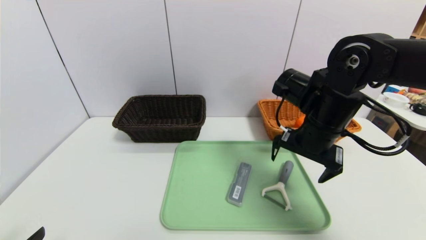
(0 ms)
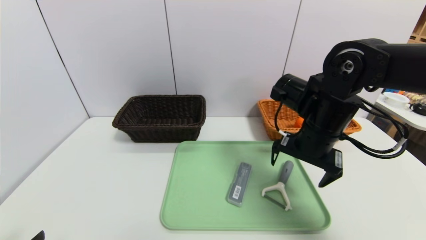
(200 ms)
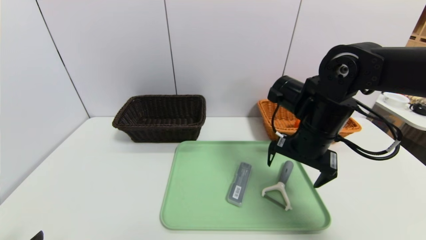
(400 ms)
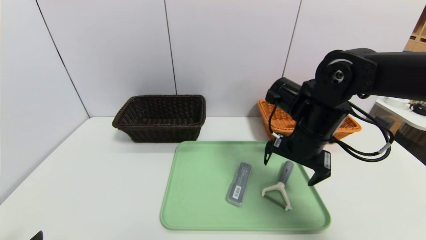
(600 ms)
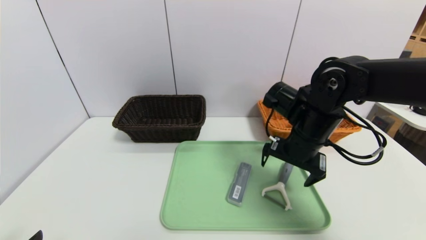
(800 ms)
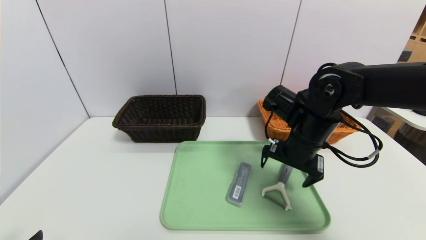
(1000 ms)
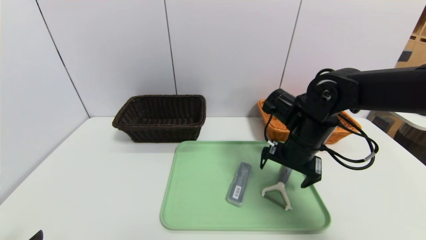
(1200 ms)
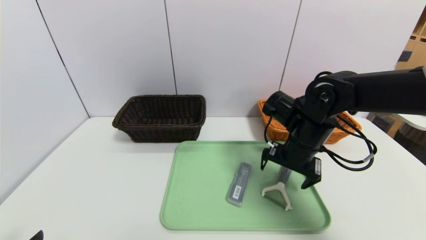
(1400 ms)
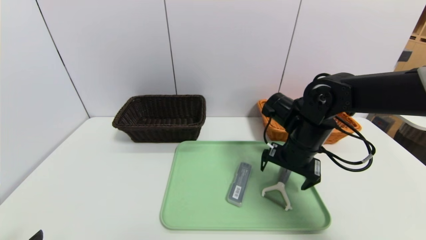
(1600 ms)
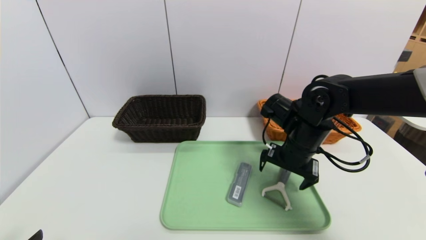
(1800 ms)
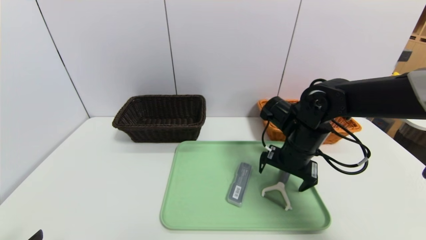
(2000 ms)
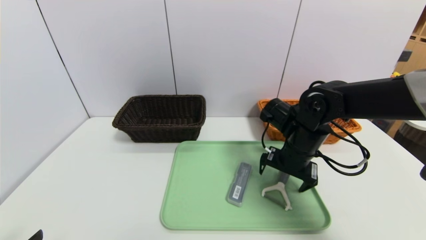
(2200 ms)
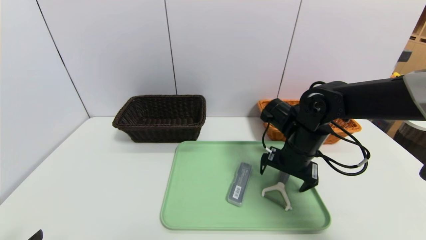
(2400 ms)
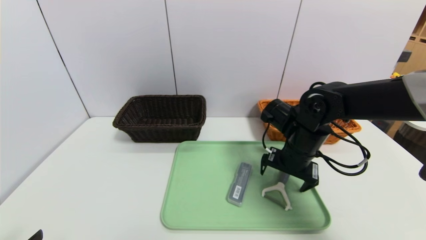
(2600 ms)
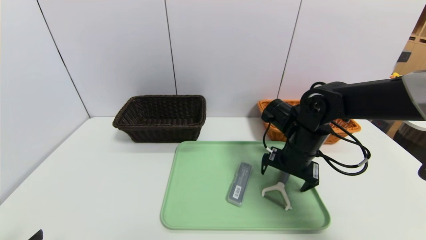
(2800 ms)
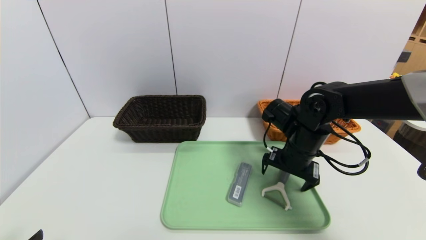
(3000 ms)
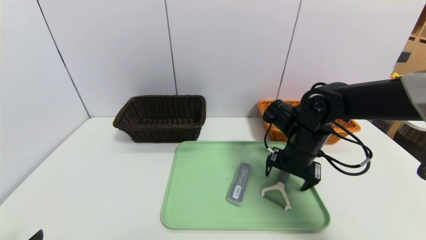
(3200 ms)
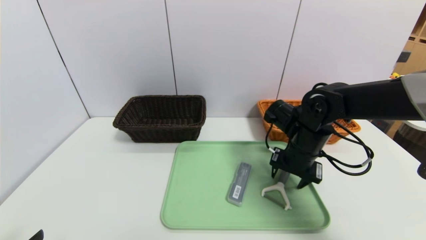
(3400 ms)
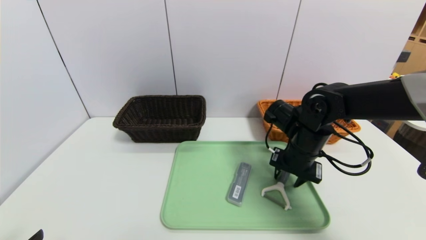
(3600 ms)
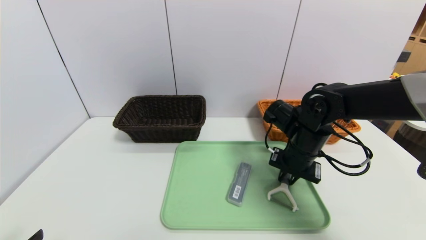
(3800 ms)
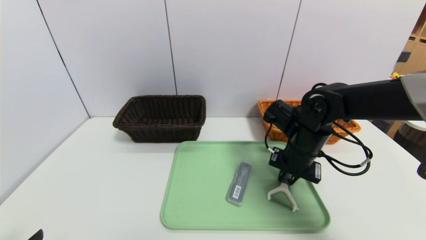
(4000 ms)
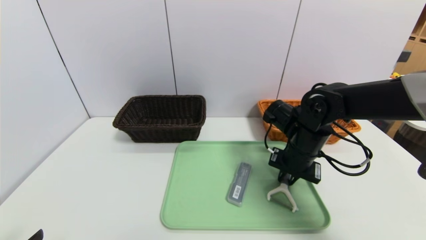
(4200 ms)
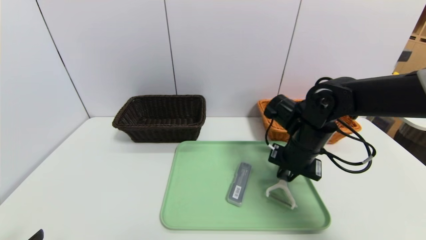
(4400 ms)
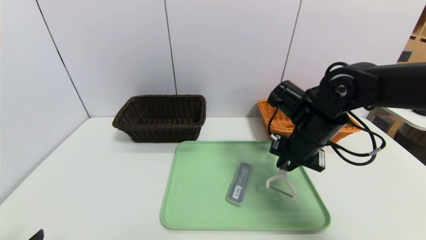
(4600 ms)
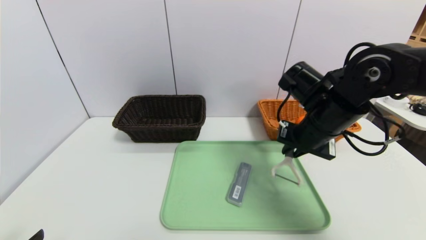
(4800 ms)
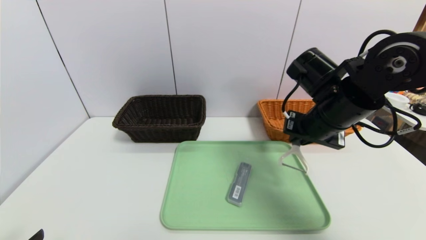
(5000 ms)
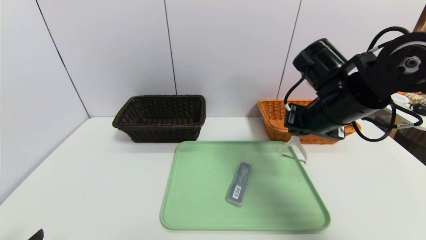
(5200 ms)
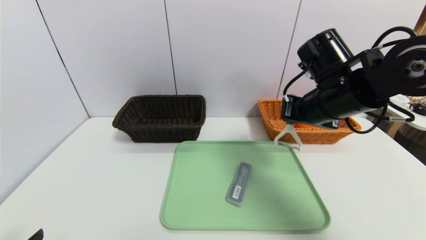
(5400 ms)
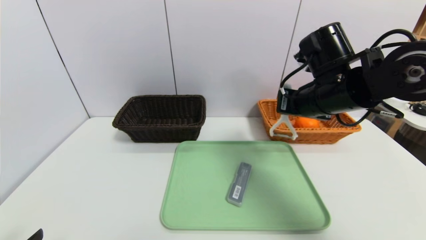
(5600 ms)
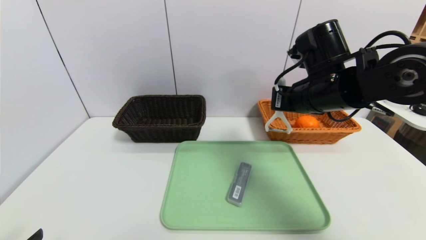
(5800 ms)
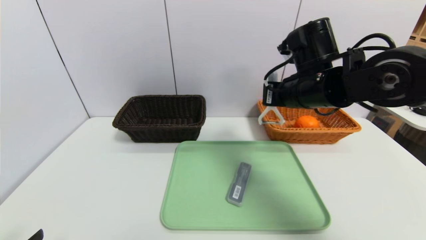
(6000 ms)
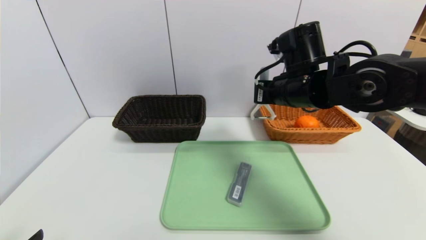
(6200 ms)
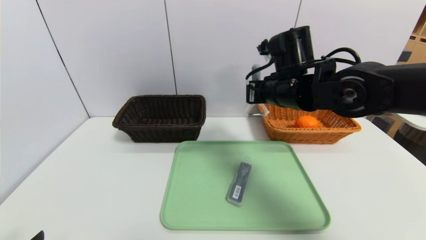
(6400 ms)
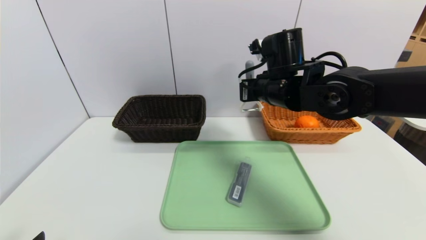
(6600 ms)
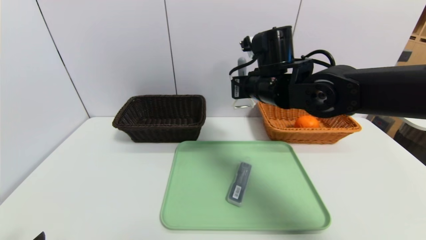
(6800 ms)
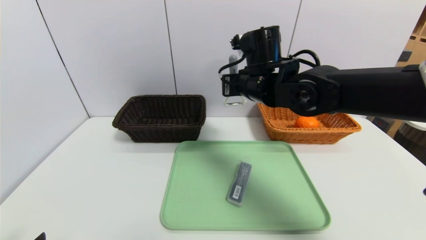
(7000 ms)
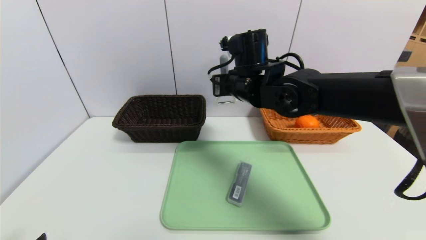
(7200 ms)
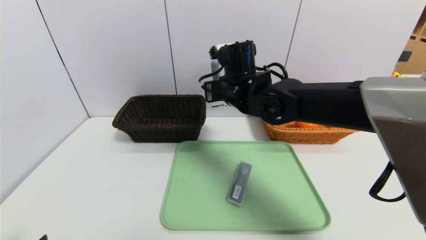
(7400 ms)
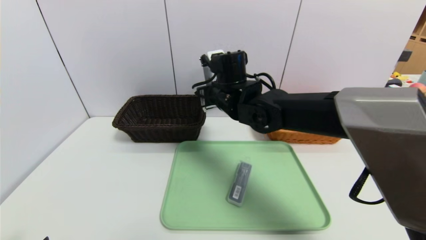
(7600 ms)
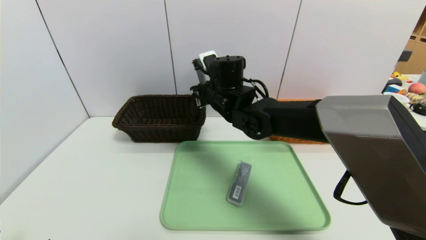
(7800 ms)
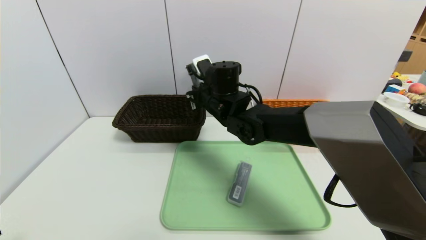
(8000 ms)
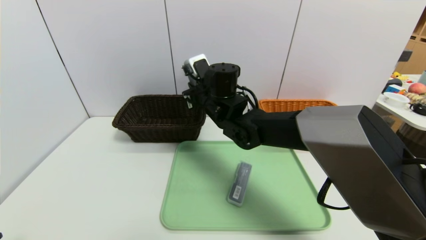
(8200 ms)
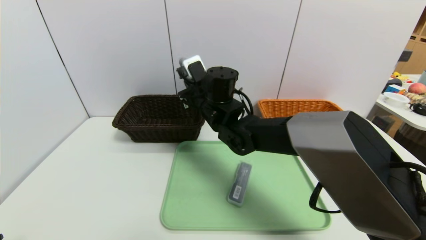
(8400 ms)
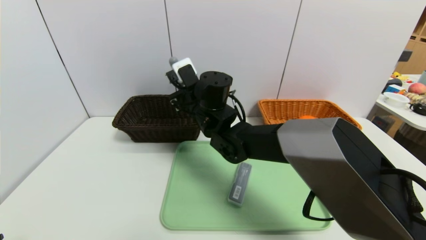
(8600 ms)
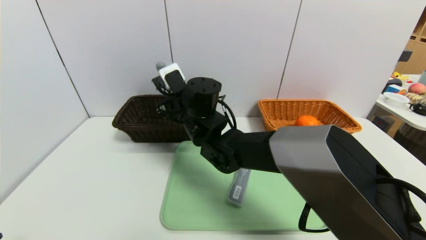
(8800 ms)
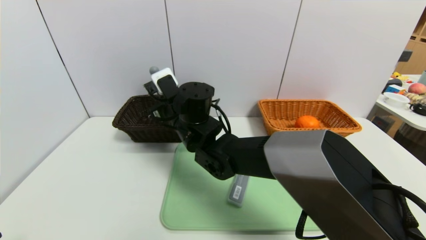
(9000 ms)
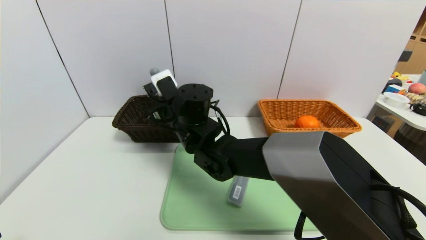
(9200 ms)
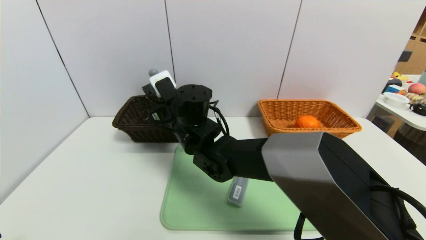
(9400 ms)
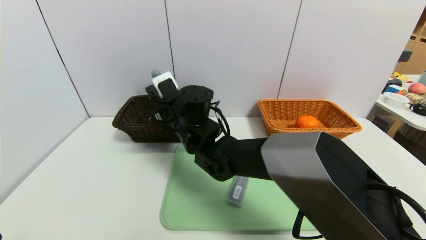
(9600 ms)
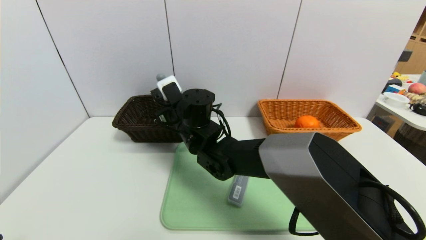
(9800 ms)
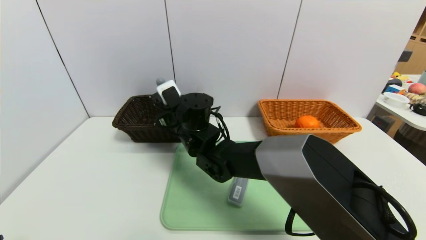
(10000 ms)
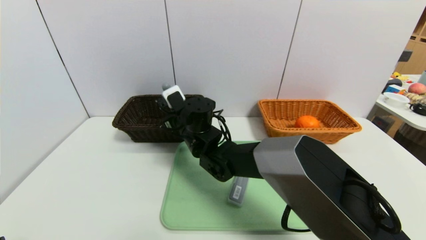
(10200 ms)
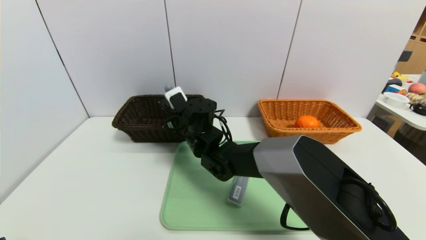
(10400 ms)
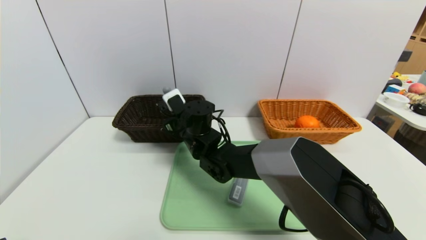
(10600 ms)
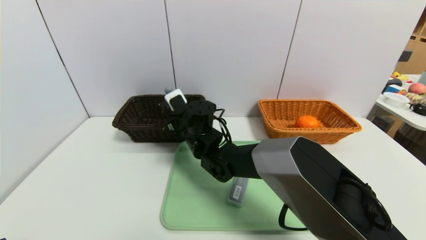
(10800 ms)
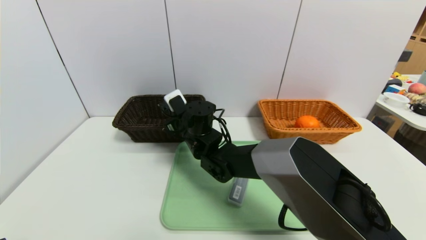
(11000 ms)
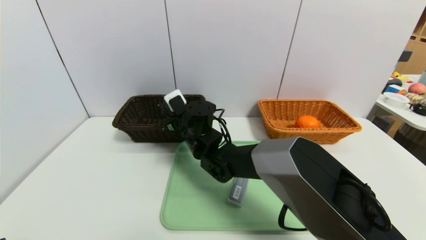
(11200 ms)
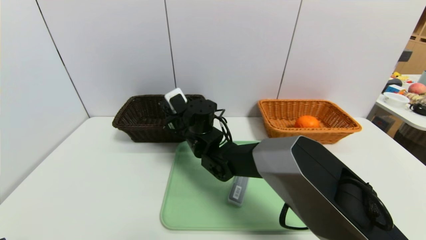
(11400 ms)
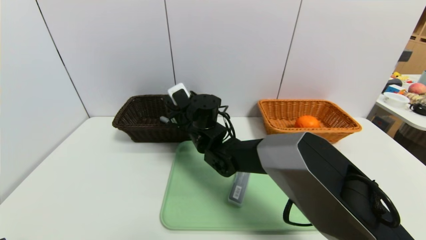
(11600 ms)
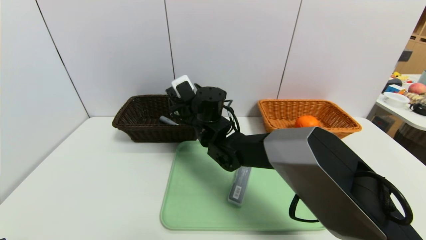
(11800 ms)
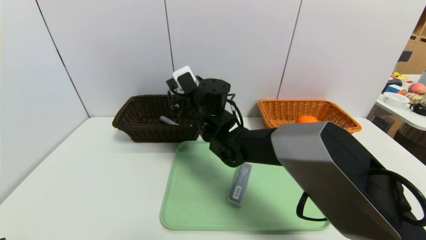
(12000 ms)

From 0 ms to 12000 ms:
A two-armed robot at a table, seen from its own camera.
Task of the whole recording: place the food in the right basket with the right gripper, and place the non food items in the left basket with the left gripper.
From 0 ms to 1600 ms: The right gripper travels downward by roughly 5 cm.
From 1600 ms to 3000 ms: There are only small adjustments of the grippers.
From 3000 ms to 4400 ms: The right gripper closes.
From 4400 ms to 6000 ms: The right gripper travels upward by roughly 10 cm.
From 6000 ms to 7600 ms: The right gripper is displaced to the left and forward by approximately 15 cm.
From 7600 ms to 9000 ms: The right gripper moves to the left, roughly 10 cm.
From 9000 ms to 10400 ms: The right gripper shifts roughly 5 cm downward.
From 10400 ms to 12000 ms: The right gripper heads upward, covering about 5 cm, and opens its fingers.

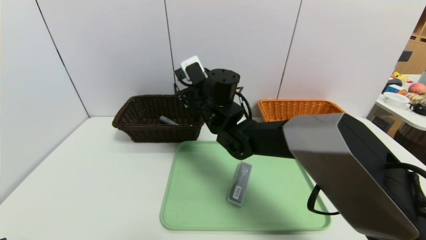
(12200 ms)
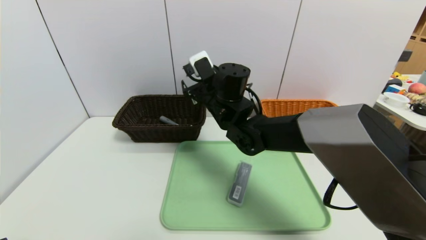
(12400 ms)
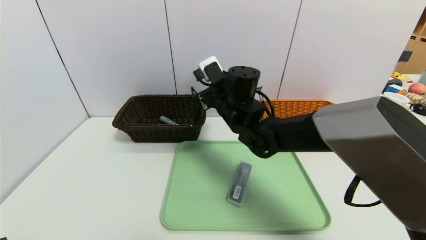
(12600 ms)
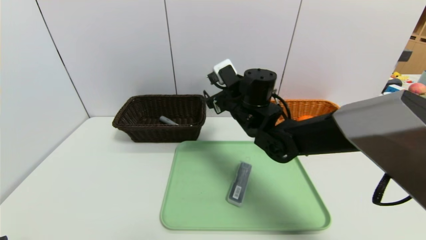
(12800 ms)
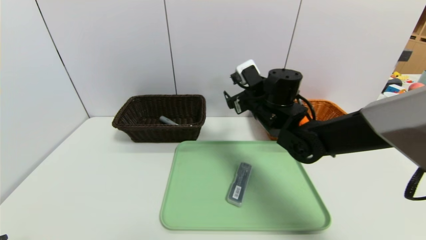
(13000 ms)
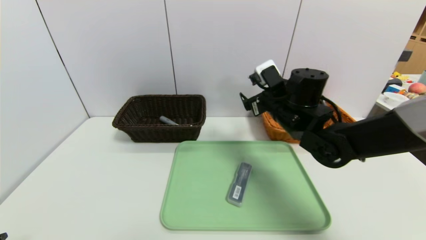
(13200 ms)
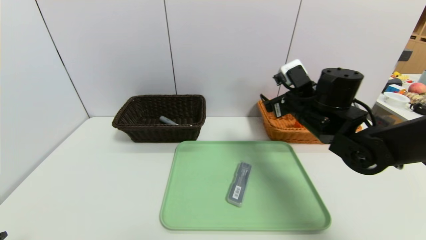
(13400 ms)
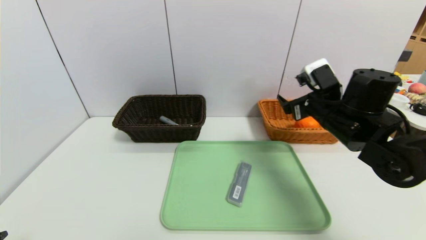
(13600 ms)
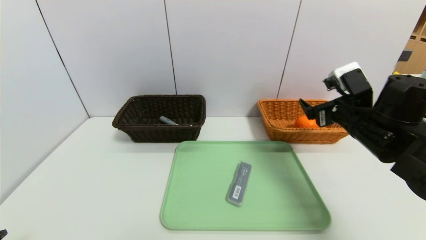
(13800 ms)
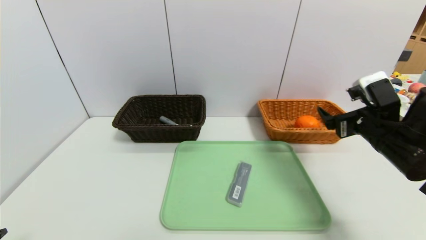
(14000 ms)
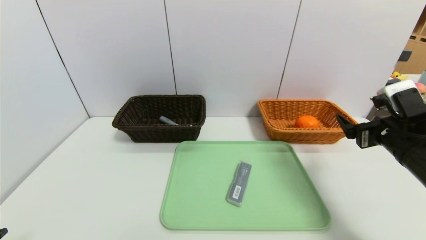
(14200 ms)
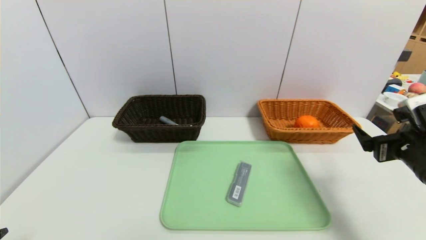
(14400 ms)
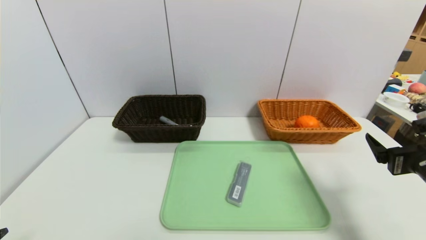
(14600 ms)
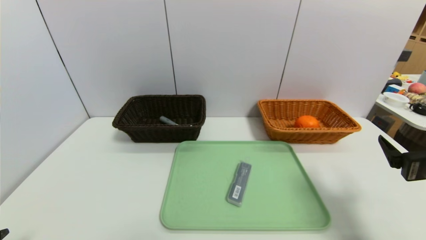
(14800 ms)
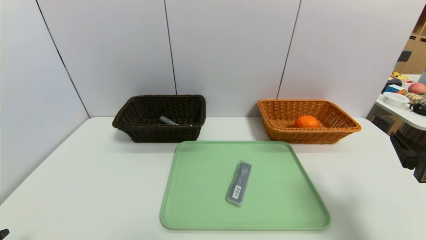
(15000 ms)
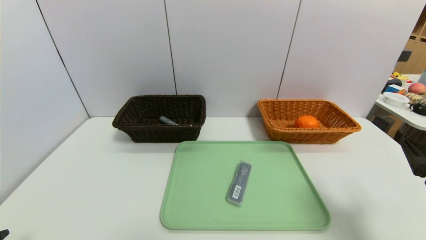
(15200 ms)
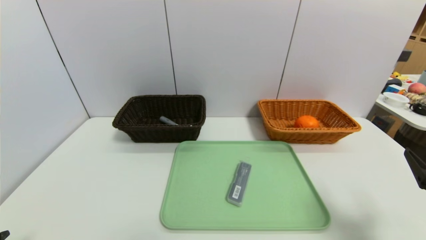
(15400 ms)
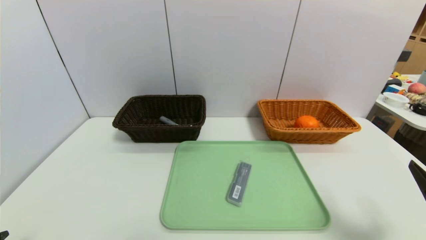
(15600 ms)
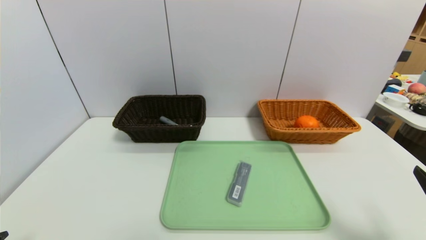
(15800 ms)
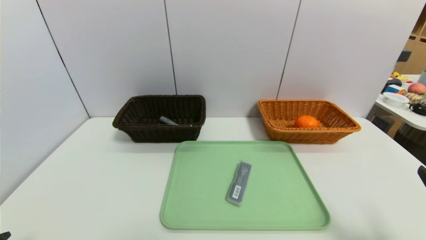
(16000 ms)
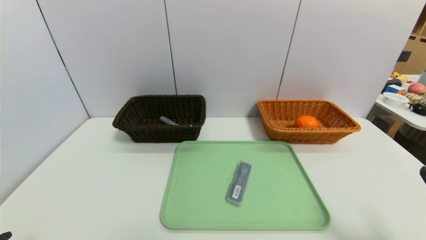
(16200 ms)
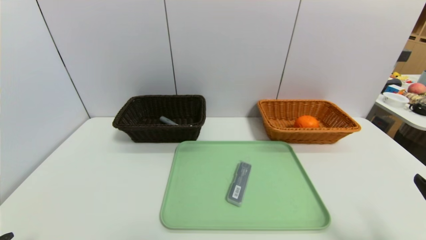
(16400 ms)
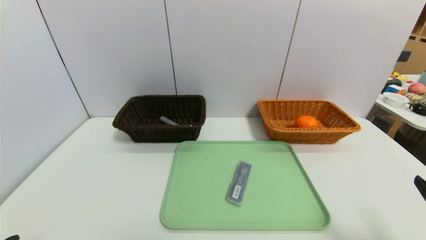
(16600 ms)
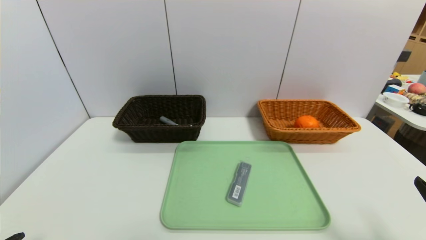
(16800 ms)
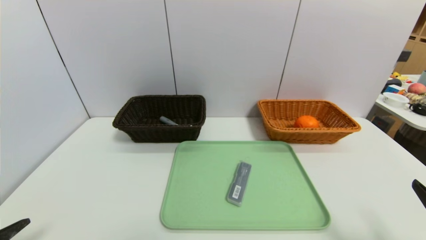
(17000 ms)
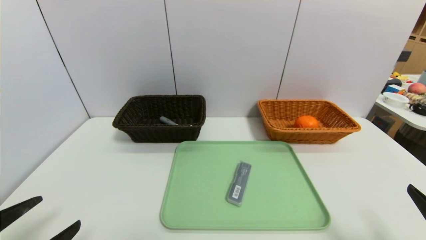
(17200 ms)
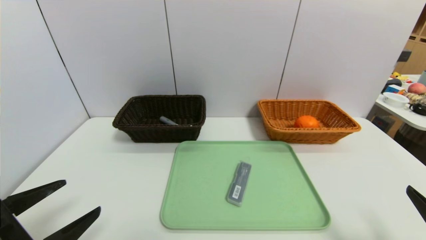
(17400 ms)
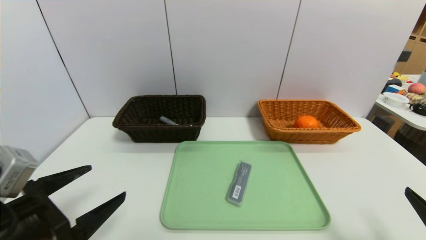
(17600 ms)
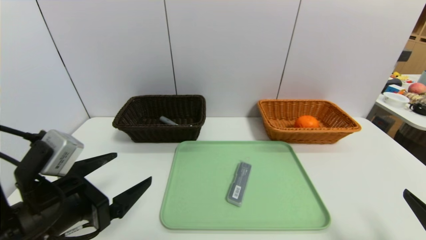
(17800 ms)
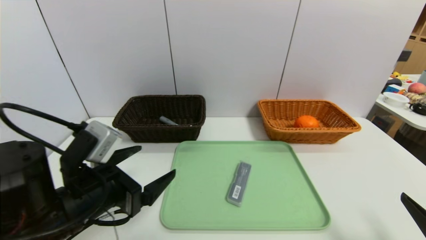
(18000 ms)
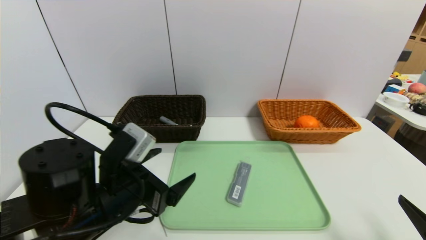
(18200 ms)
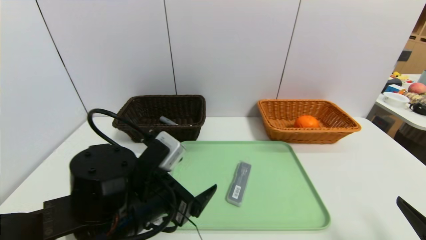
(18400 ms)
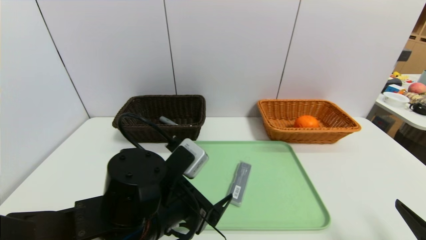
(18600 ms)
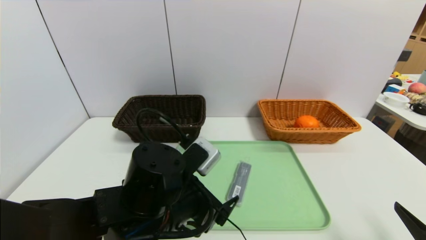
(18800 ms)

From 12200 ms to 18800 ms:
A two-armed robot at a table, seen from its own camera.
Task of the whole recording: place the food in the right basket with the right gripper, and place the non food items in the left basket with the left gripper.
From 12200 ms to 13800 ms: The right gripper shifts some 30 cm to the right.
From 13800 ms to 15400 ms: The right gripper travels backward by approximately 20 cm.
From 15400 ms to 17200 ms: The left gripper is displaced forward by roughly 5 cm.
From 17200 ms to 18800 ms: The left gripper moves to the right and forward, approximately 25 cm.
